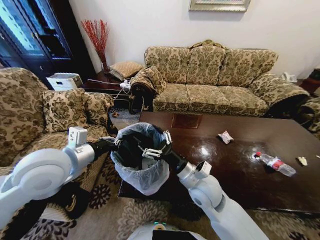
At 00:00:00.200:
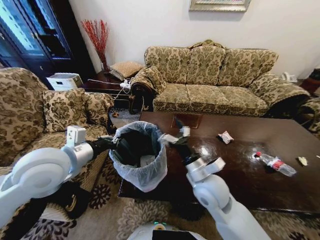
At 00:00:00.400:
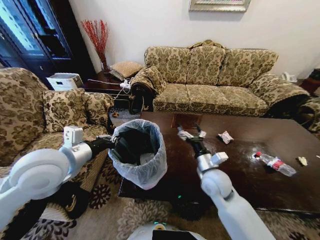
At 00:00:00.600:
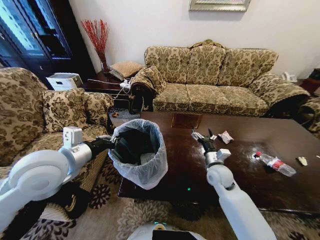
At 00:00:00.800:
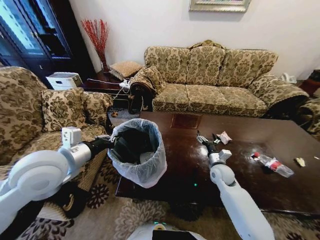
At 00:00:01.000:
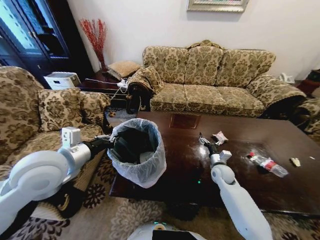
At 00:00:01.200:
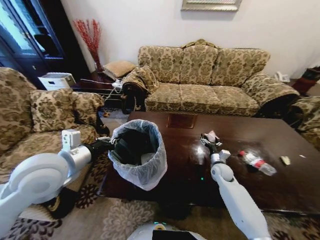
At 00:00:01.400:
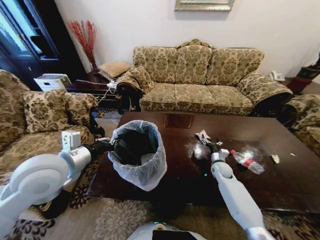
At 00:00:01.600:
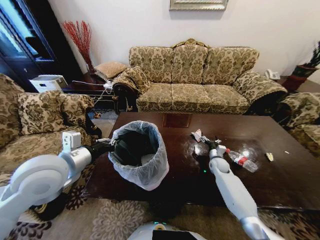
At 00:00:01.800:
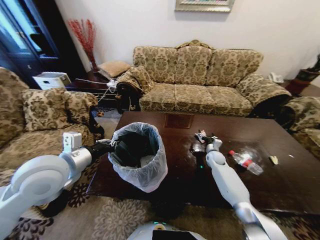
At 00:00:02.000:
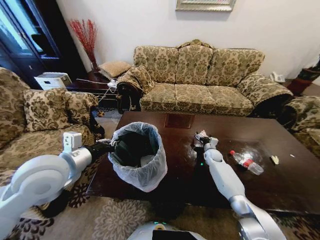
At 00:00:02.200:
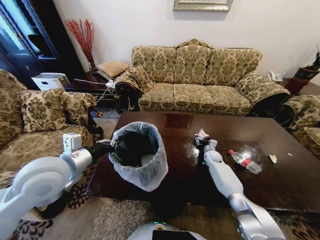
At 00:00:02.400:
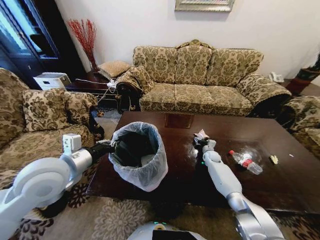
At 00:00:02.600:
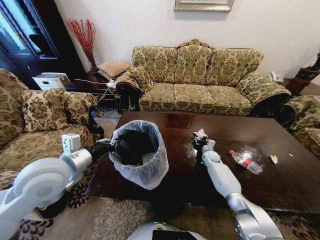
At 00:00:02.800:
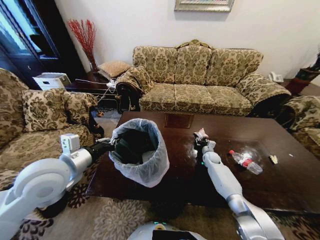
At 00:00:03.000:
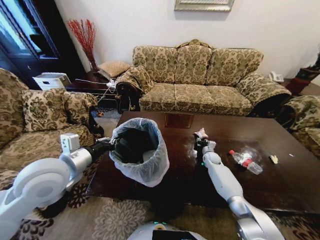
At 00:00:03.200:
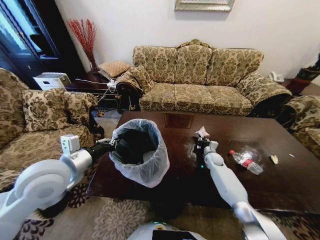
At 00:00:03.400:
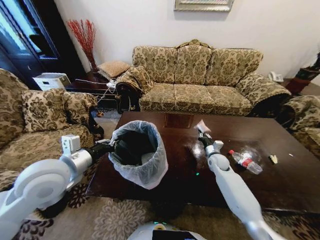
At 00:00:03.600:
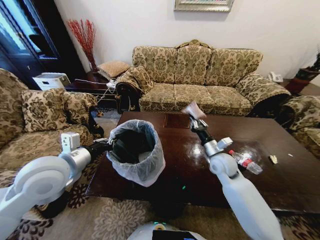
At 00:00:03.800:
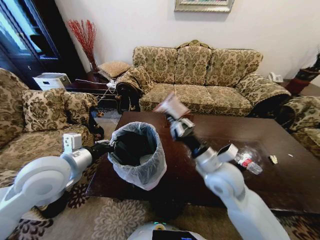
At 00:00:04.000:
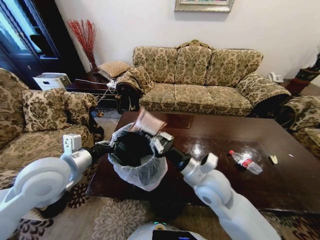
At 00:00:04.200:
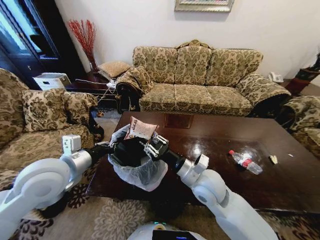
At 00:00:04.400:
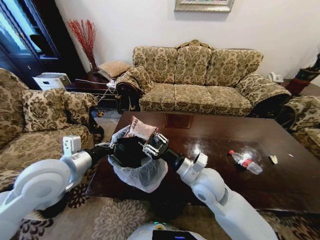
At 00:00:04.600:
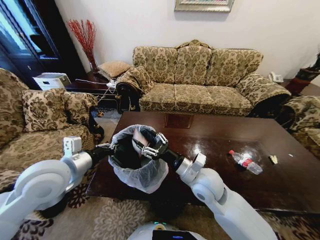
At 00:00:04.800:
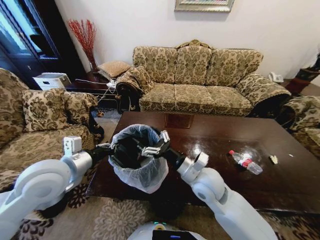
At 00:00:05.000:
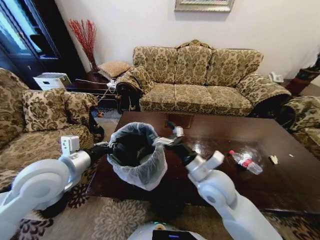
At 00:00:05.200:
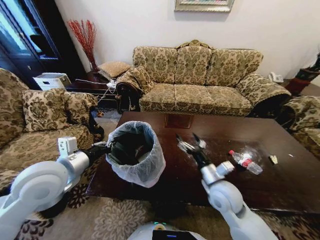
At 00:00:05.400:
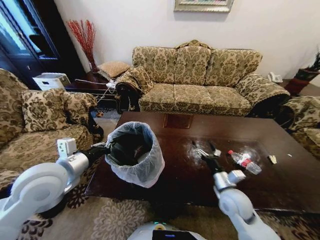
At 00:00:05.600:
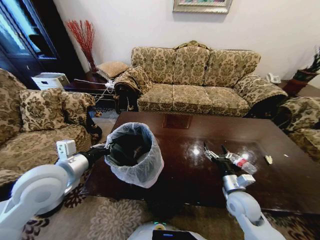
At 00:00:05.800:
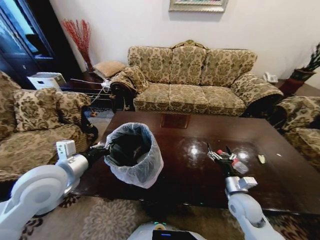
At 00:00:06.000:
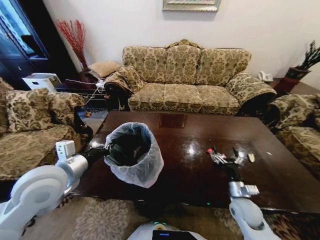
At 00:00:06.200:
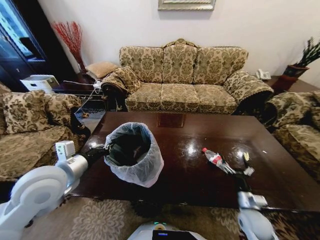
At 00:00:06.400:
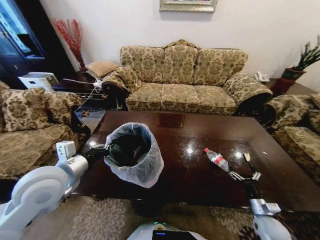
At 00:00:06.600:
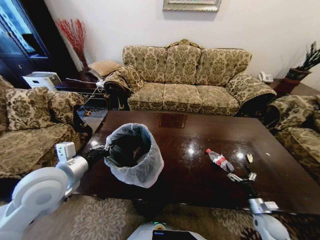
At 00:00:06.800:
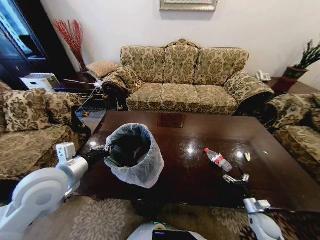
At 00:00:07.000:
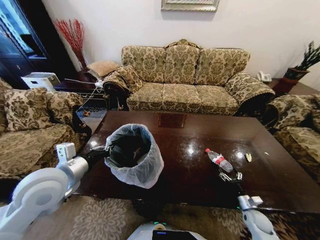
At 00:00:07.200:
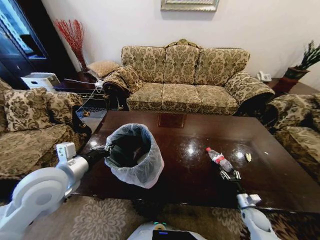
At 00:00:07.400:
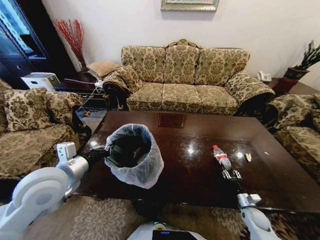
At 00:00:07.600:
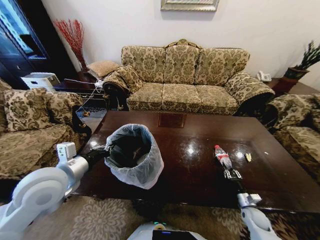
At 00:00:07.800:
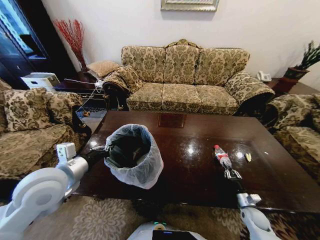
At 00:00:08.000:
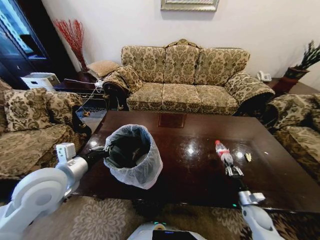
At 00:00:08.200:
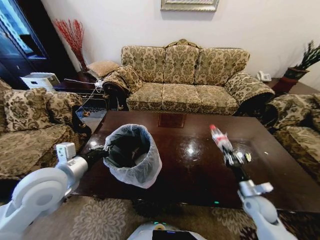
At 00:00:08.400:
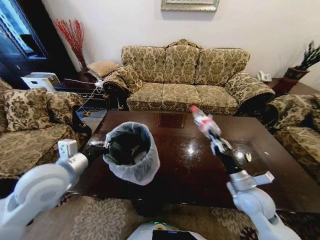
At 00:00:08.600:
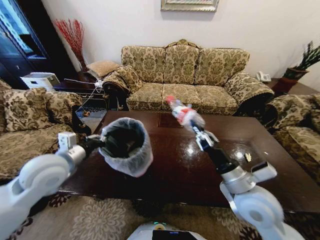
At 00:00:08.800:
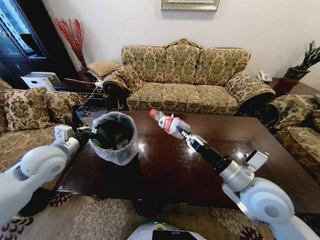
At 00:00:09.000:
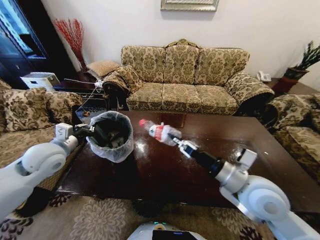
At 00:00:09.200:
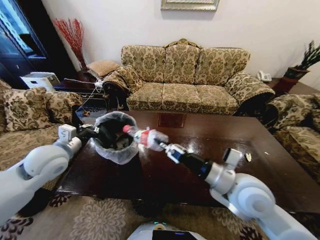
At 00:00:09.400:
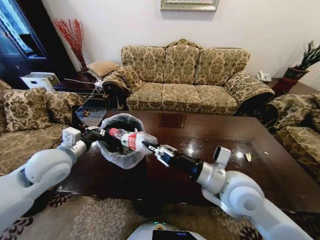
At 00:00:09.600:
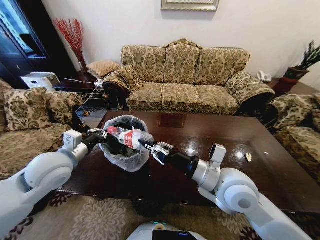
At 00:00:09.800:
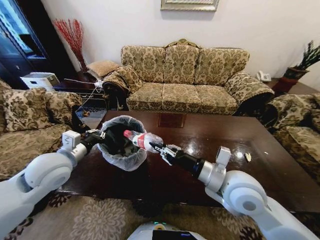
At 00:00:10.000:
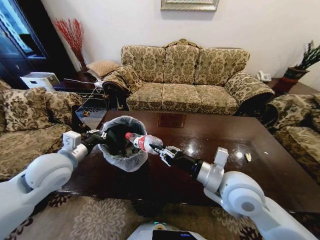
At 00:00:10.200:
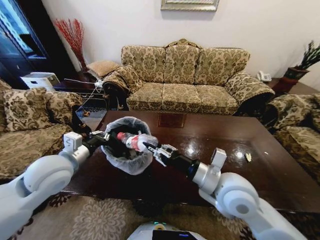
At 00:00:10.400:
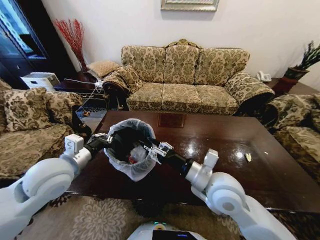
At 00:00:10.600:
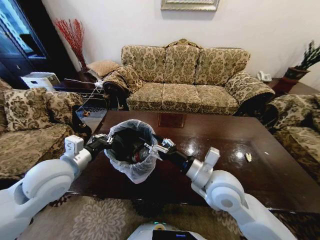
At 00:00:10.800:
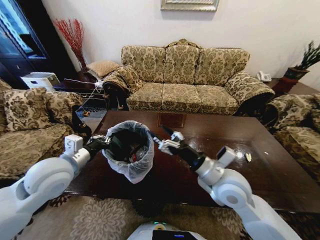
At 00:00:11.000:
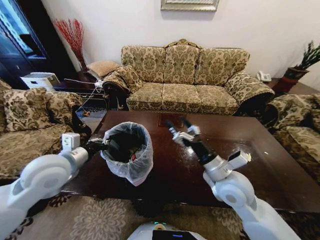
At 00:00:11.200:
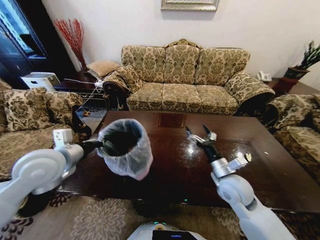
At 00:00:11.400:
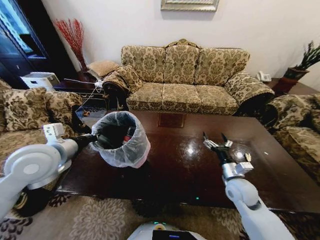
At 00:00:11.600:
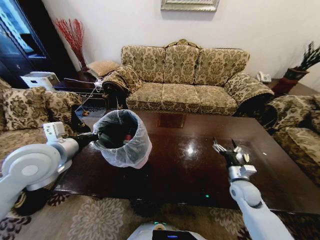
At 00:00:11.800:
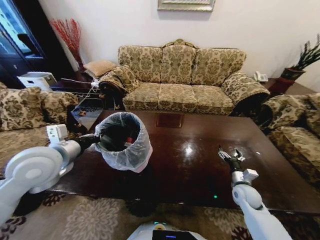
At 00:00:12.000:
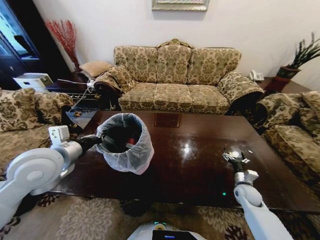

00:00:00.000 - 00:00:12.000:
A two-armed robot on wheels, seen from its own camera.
Task of the whole recording: Move to the front of the table and place the trash on the table into the trash bin.
00:00:00.000 - 00:00:01.600: The right gripper heads to the right, forward and downward, covering some 35 cm.
00:00:01.600 - 00:00:03.000: The right gripper moves forward, some 5 cm, and closes.
00:00:03.000 - 00:00:04.400: The right gripper travels backward, upward and to the left by some 40 cm, and closes, then opens again.
00:00:04.400 - 00:00:06.000: The right gripper is displaced to the right and downward by some 25 cm, and opens its fingers.
00:00:06.000 - 00:00:07.600: The right gripper shifts approximately 20 cm downward and to the right, and closes its fingers.
00:00:07.600 - 00:00:09.000: The right gripper heads upward and to the left, covering some 40 cm. The left gripper moves forward and to the left, about 10 cm.
00:00:09.000 - 00:00:10.400: The right gripper moves to the left, some 10 cm; the left gripper goes approximately 10 cm to the right and backward.
00:00:10.400 - 00:00:12.000: The right gripper is displaced downward and to the right by about 35 cm, and opens its fingers.

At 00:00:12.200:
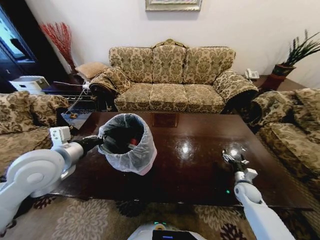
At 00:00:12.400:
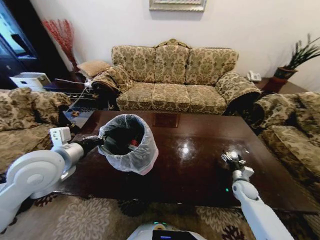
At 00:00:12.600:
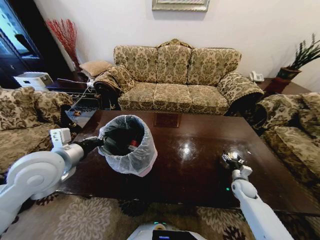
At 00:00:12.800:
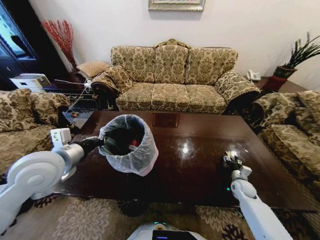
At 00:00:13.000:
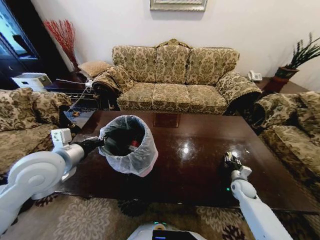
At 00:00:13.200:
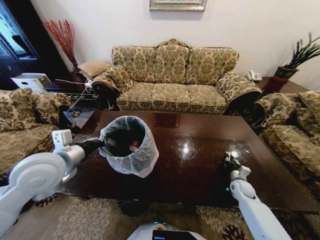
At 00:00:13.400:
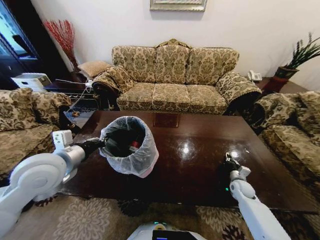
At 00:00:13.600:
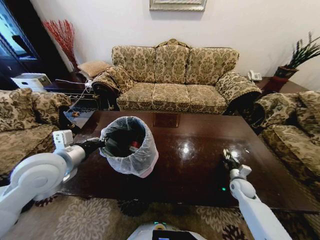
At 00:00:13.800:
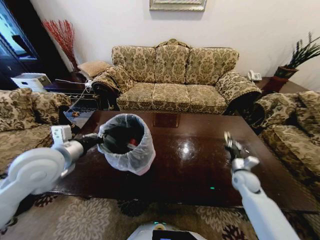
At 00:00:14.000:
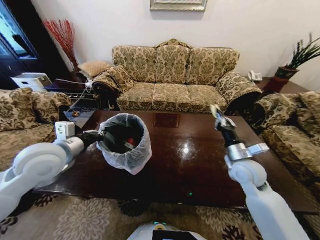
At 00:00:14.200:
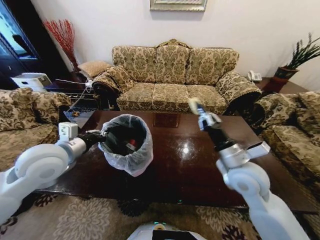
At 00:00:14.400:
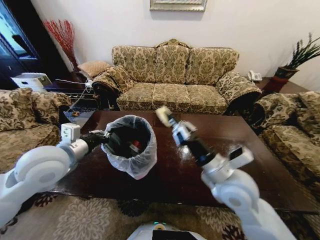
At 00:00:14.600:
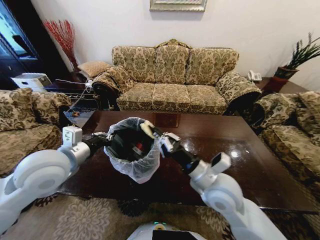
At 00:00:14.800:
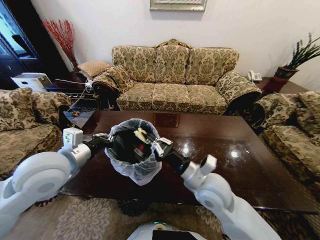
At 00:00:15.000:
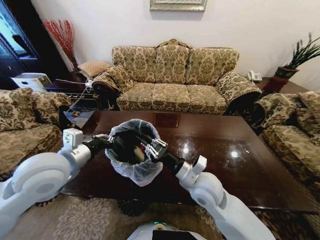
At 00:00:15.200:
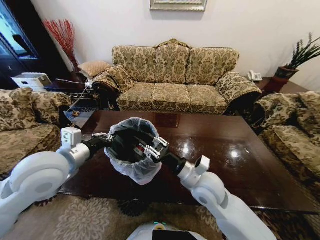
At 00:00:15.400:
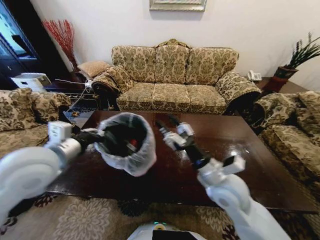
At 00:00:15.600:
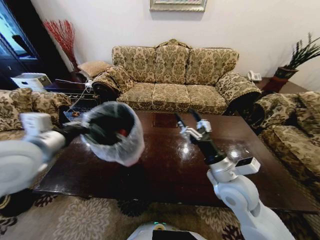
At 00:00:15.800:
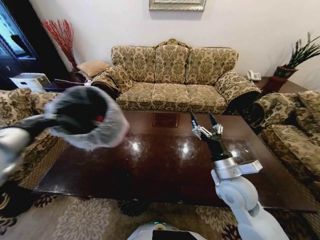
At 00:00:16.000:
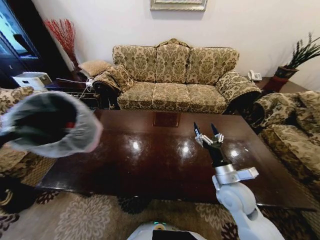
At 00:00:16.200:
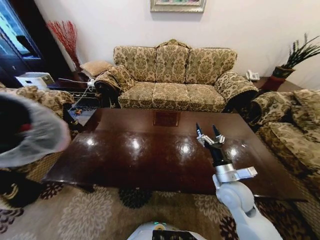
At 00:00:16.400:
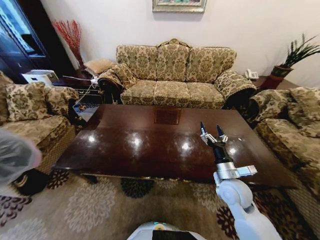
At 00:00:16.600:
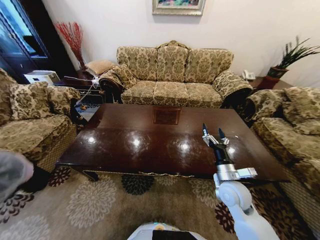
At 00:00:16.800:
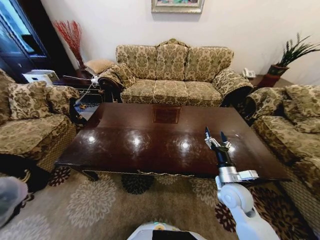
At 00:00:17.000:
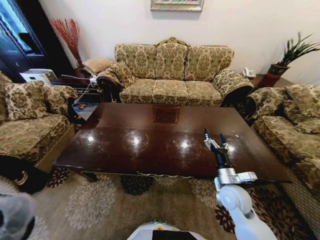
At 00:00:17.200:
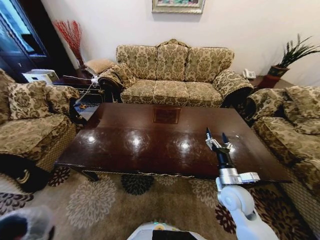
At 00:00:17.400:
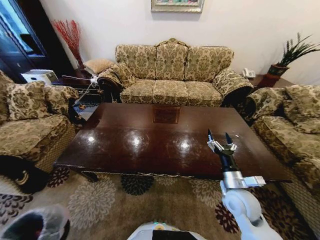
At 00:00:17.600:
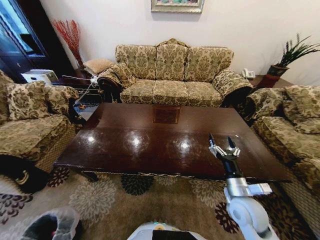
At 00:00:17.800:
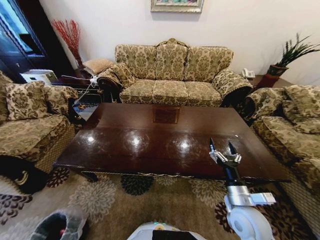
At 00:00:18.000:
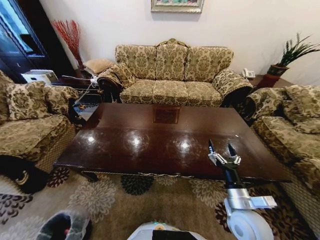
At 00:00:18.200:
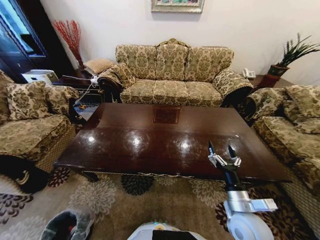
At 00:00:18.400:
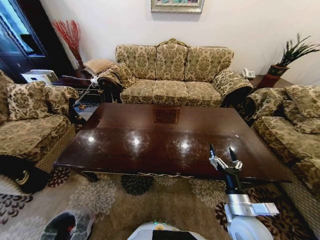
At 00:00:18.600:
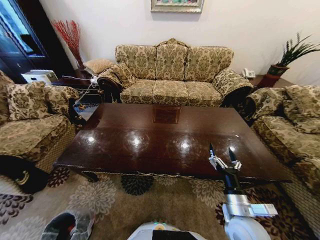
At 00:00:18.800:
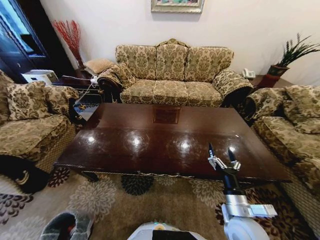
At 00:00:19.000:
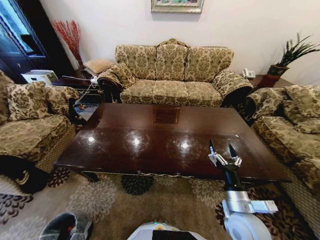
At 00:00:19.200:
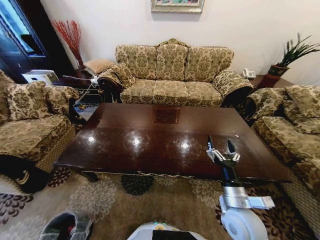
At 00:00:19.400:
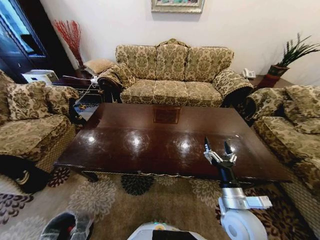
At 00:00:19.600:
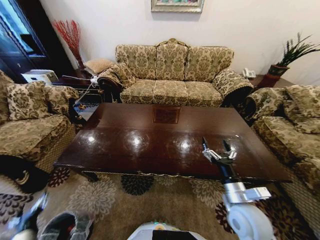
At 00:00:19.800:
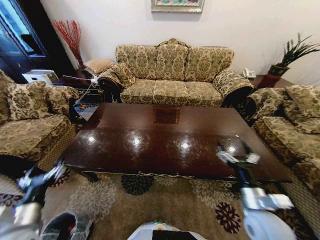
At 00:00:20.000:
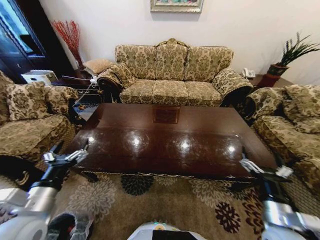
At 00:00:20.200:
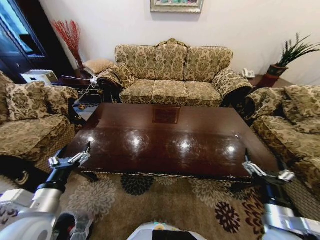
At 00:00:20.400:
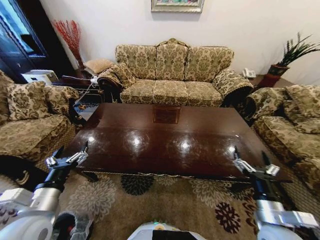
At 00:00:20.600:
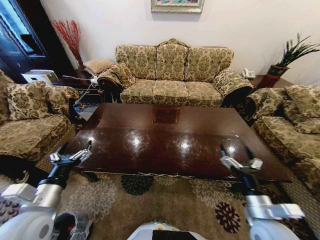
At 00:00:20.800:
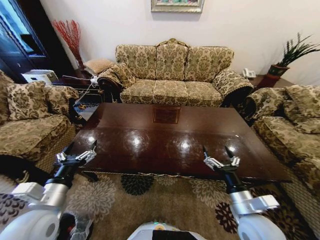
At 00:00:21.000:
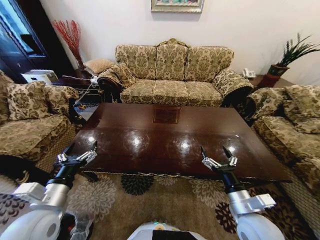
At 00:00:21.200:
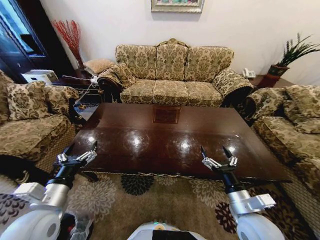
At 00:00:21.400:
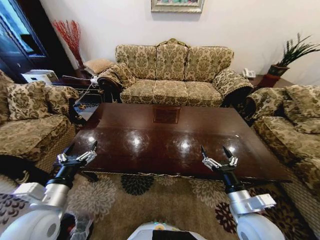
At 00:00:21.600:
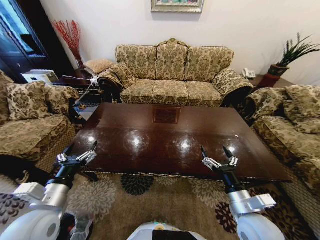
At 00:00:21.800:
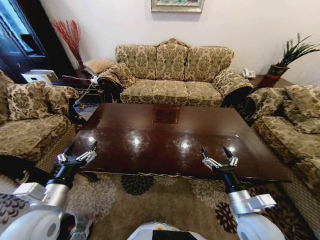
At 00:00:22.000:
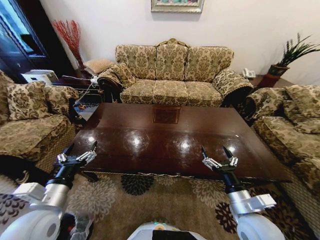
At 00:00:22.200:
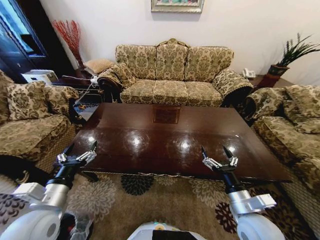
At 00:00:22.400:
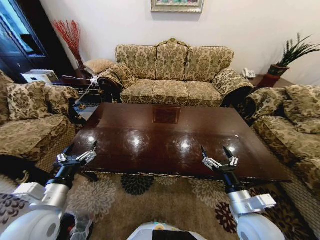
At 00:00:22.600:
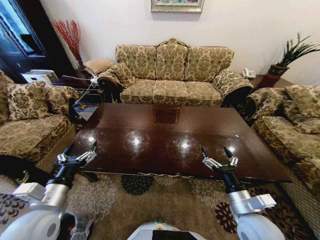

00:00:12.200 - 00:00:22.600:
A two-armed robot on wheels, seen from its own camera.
Task of the whole recording: Move to the front of the table and place the trash on the table into the trash bin.
00:00:12.200 - 00:00:13.600: The right gripper closes up.
00:00:13.600 - 00:00:15.200: The right gripper moves to the left and upward, approximately 35 cm, and opens up.
00:00:15.200 - 00:00:16.600: The left gripper is displaced to the left, backward and downward by some 35 cm, while the right gripper goes approximately 15 cm to the right and downward, and opens up.
00:00:16.600 - 00:00:18.200: The left gripper goes approximately 40 cm downward, while the right gripper travels backward by roughly 10 cm.
00:00:18.200 - 00:00:19.600: The left gripper heads upward, covering roughly 30 cm, and opens.
00:00:19.600 - 00:00:21.200: The right gripper goes to the right and returns, roughly 10 cm each way. The left gripper shifts approximately 20 cm upward, to the right and forward.
00:00:21.200 - 00:00:22.600: Neither gripper changes place.
